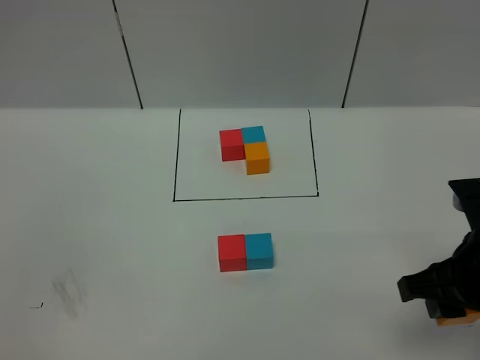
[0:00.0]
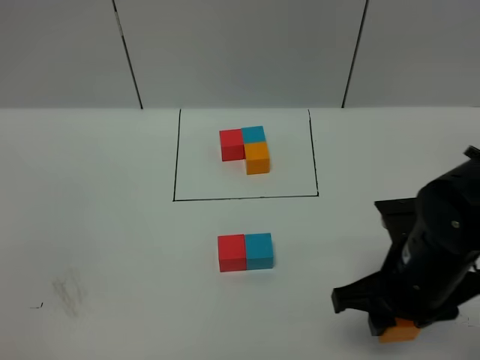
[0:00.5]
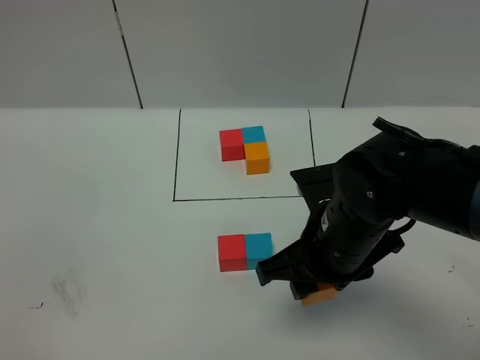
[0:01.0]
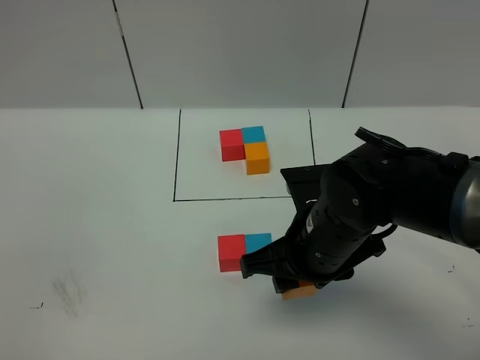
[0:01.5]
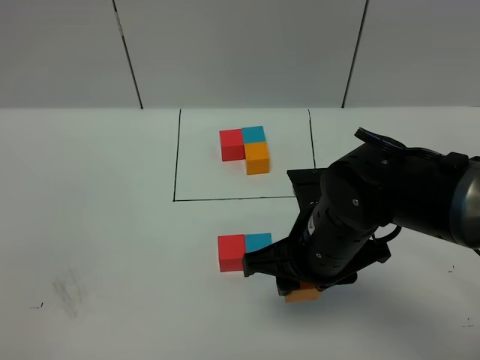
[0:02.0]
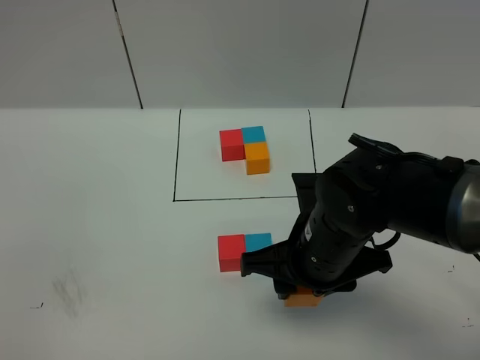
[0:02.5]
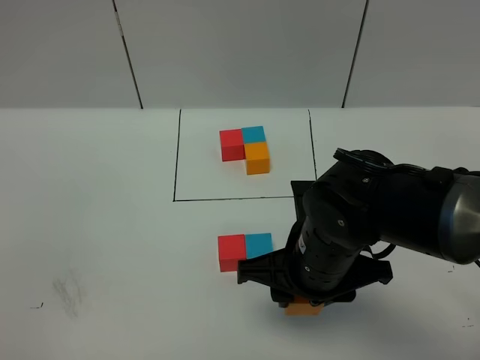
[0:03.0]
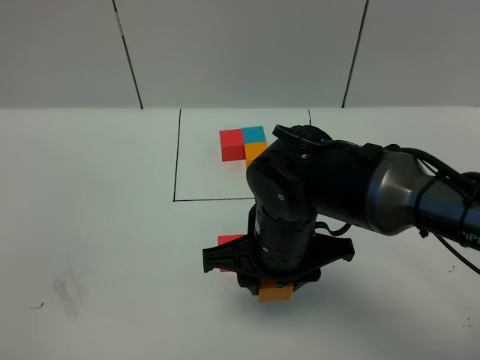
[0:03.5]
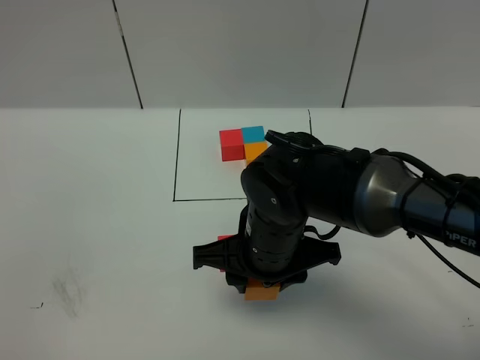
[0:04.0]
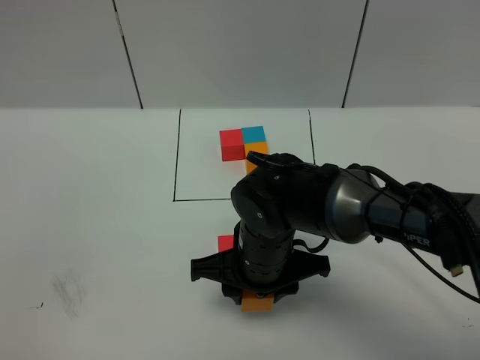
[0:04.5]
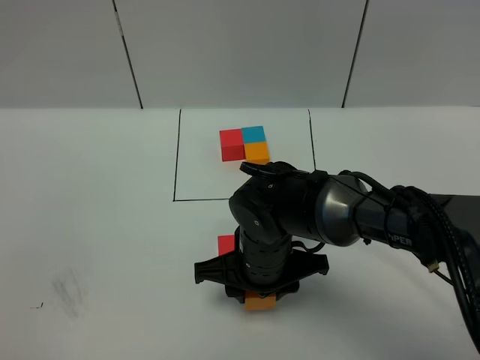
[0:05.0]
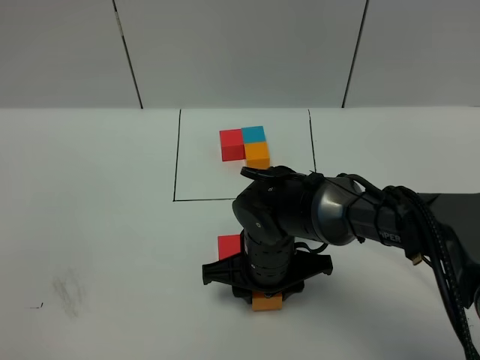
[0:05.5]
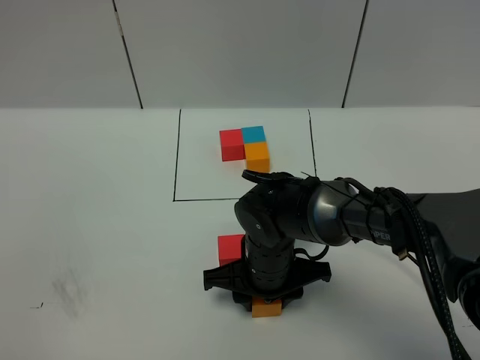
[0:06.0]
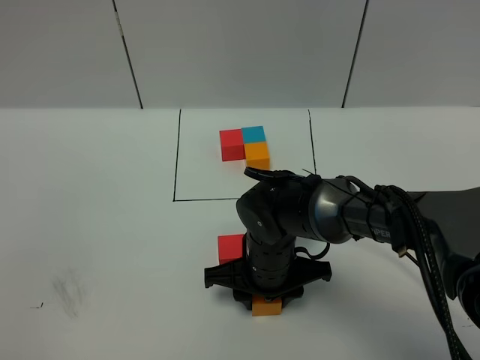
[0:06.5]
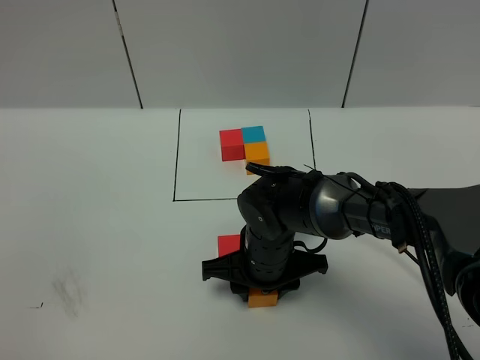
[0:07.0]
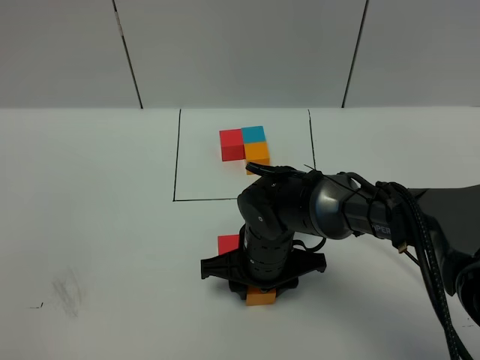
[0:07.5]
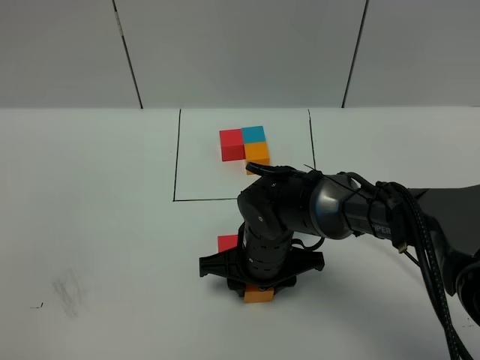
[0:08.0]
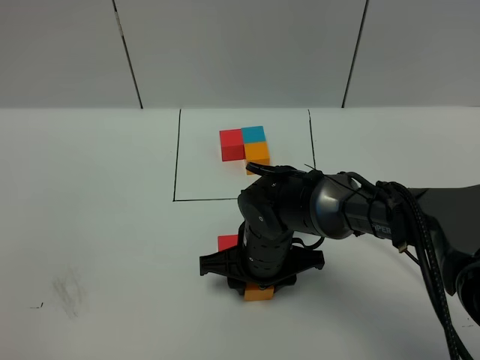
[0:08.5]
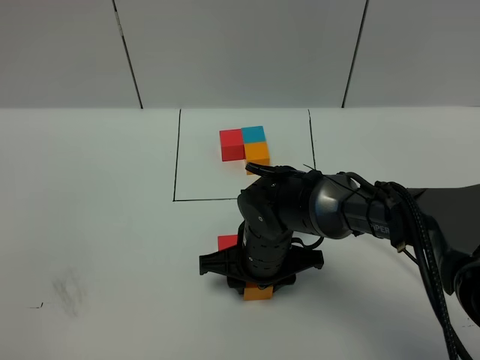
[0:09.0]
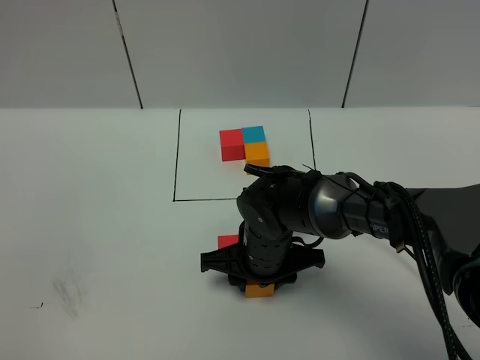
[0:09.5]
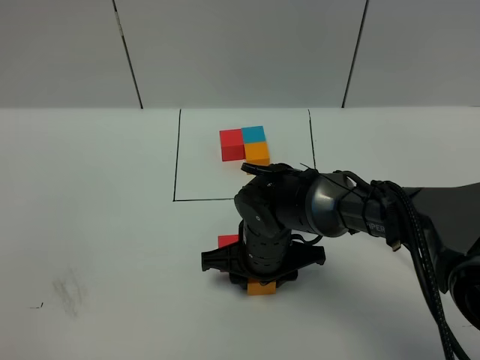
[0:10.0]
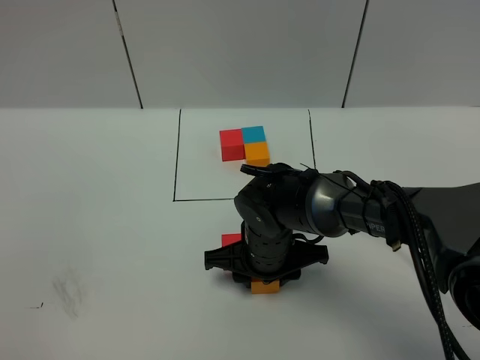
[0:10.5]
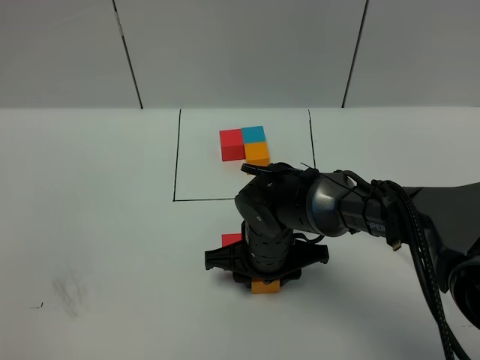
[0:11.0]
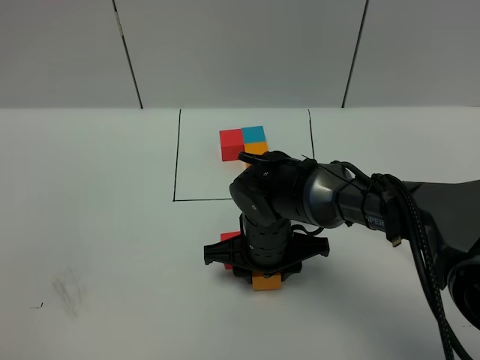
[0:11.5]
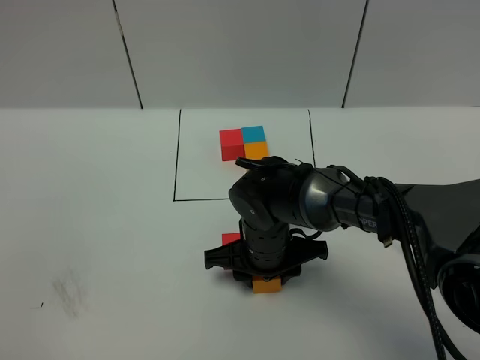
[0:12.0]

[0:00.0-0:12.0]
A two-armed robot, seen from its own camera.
Task of the whole recording: According to the building block template in front, assemble the scattered blocks together.
0:00.0 to 0:02.0: The right gripper shifts approximately 15 cm to the left.
0:02.0 to 0:04.0: The right gripper moves to the left, roughly 5 cm.
0:04.0 to 0:06.0: The right gripper travels downward by approximately 10 cm.
0:06.0 to 0:08.0: Both grippers stay about where they are.
0:08.0 to 0:10.0: Both grippers stay about where they are.
0:10.0 to 0:12.0: Neither gripper changes place.

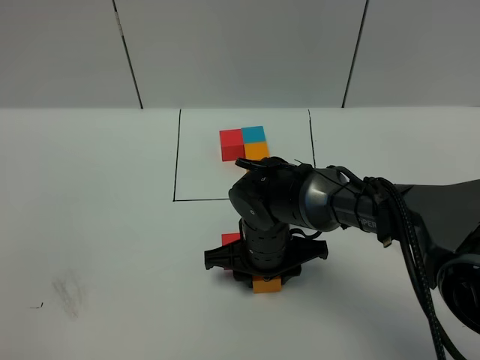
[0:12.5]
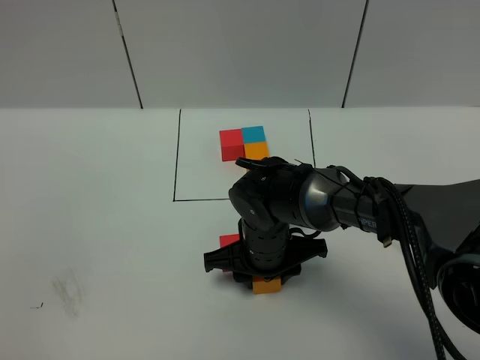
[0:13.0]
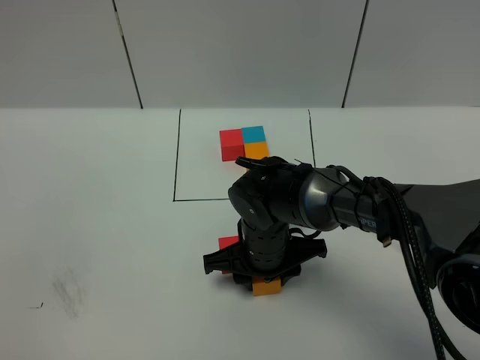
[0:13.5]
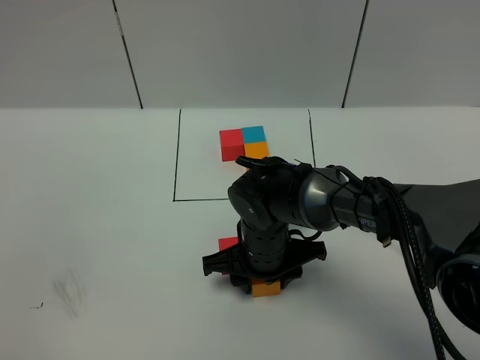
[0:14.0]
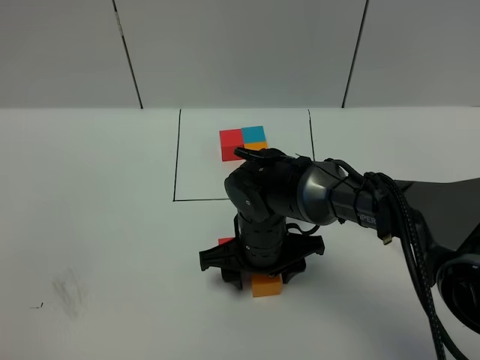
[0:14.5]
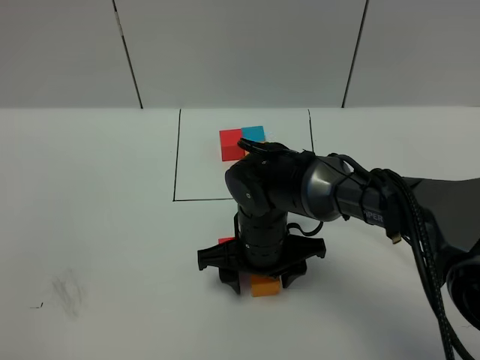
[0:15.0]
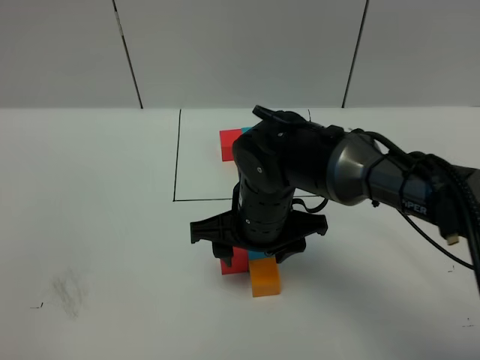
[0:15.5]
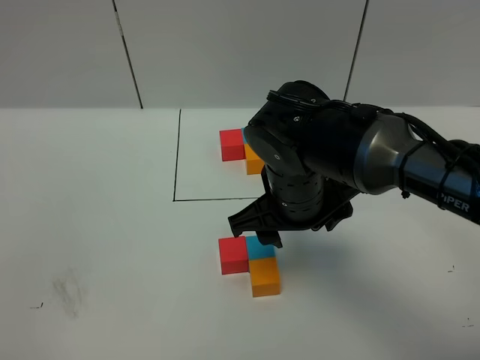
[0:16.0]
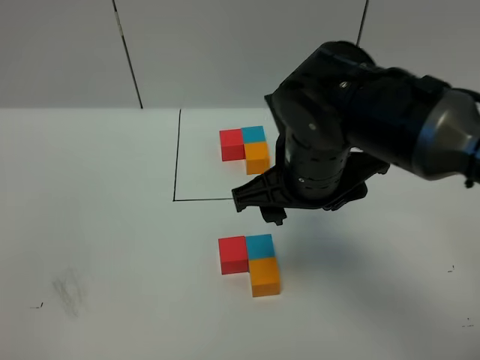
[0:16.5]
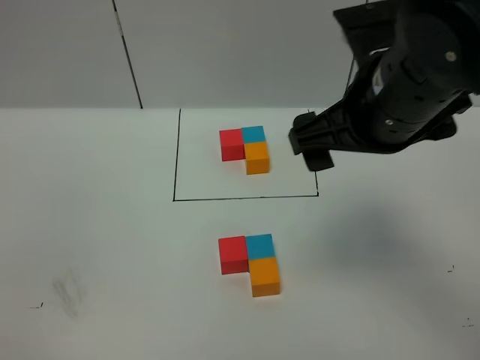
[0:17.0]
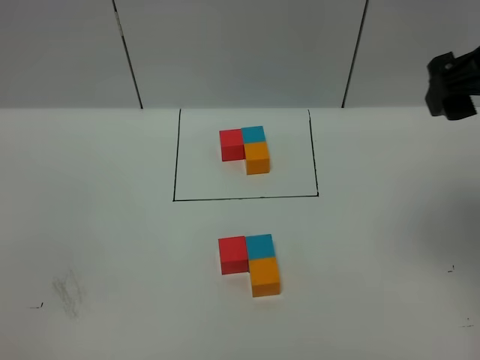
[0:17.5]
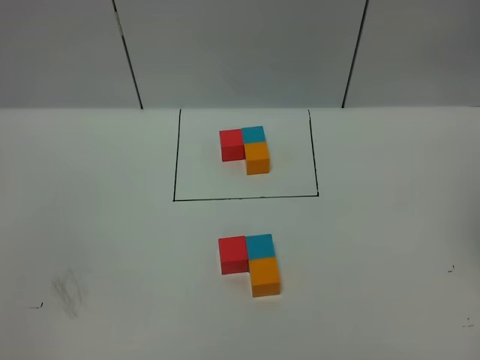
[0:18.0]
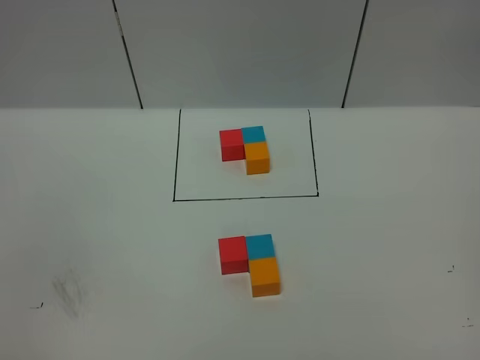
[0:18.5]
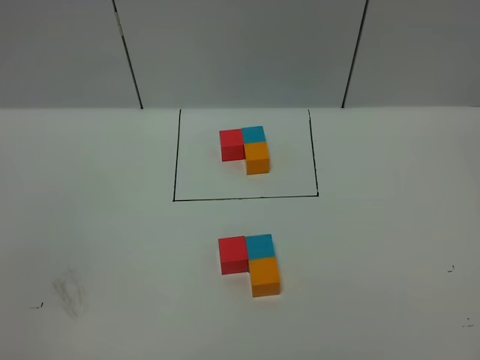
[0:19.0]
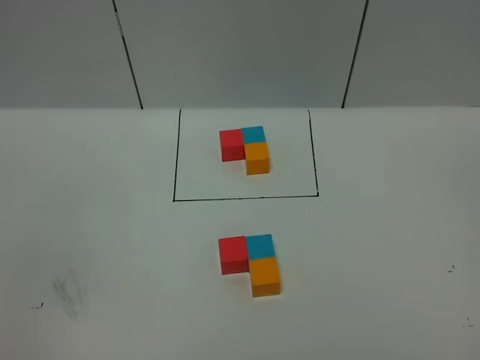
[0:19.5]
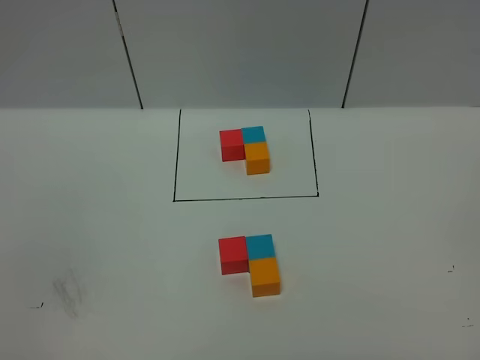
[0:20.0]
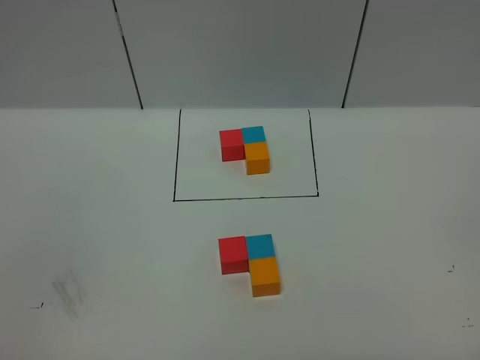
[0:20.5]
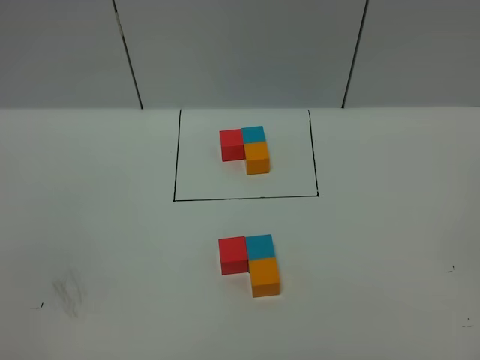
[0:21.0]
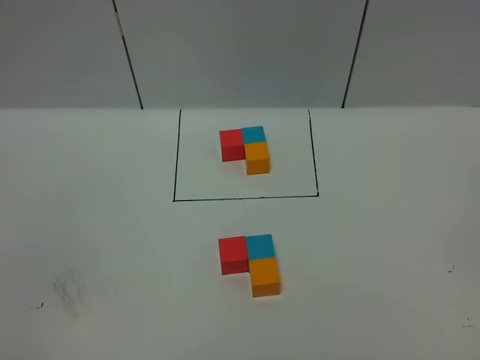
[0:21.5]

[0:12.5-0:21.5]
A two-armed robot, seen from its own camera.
Task of the whole recording: According to the building block template in front, assemble the scattered blocks together.
Step, 0:12.5 to 0:15.0: Put the orange cube in the front of the blue cube.
0:12.5 to 0:14.5: The right gripper opens its fingers.
0:14.5 to 0:17.0: The right gripper travels upward and to the right by roughly 25 cm, and opens.
0:17.0 to 0:19.5: The right gripper is displaced backward and to the right by roughly 30 cm.

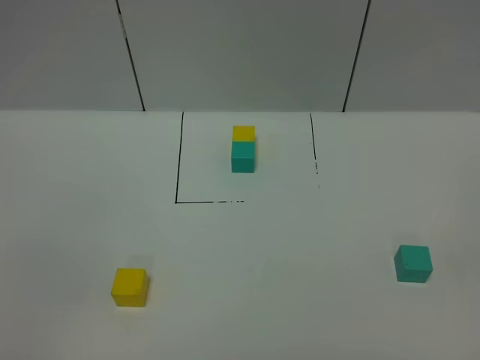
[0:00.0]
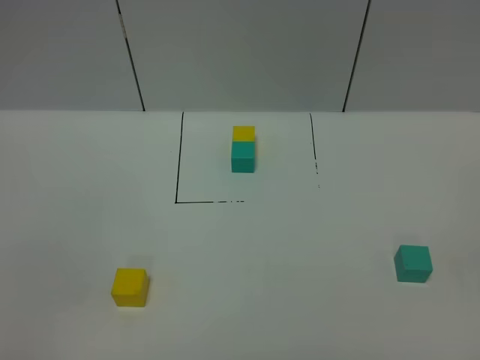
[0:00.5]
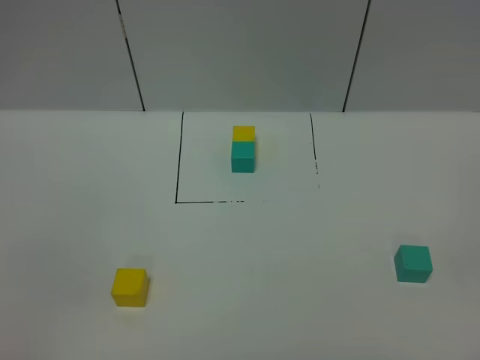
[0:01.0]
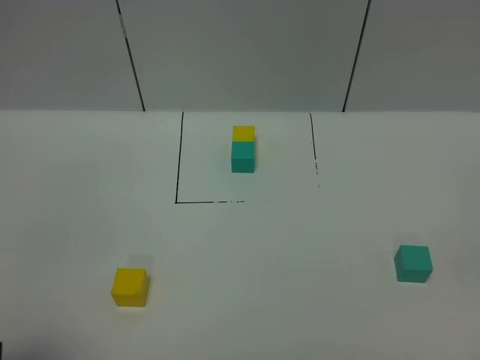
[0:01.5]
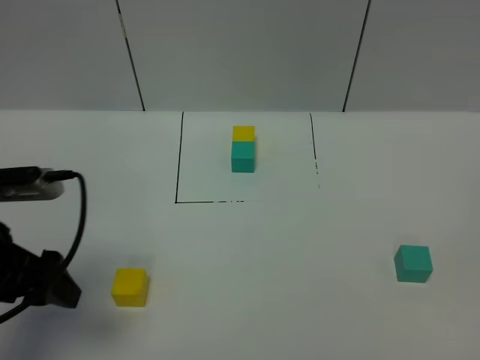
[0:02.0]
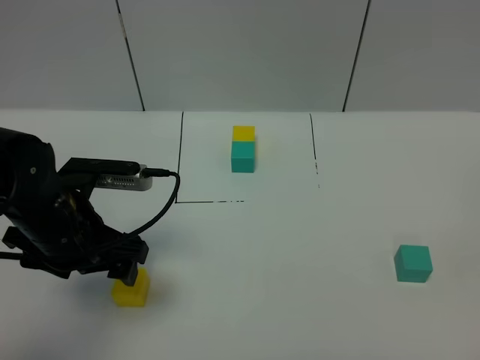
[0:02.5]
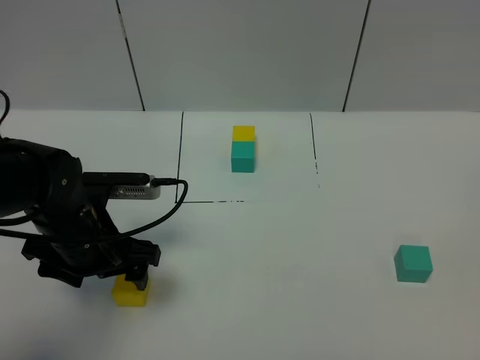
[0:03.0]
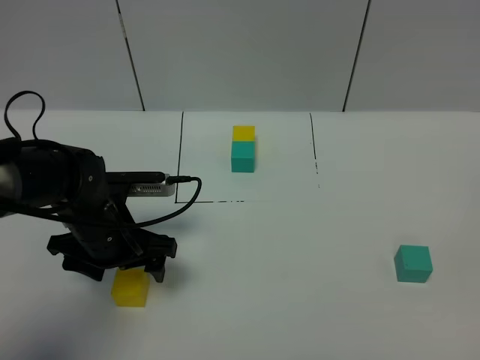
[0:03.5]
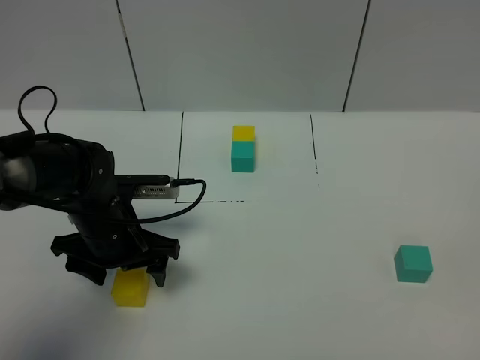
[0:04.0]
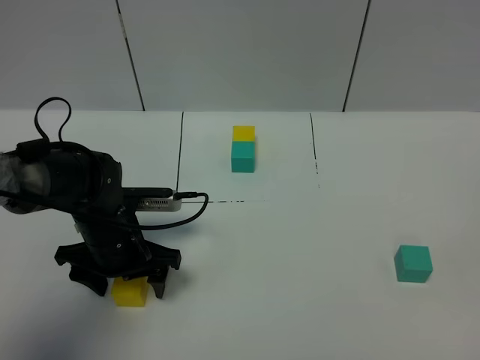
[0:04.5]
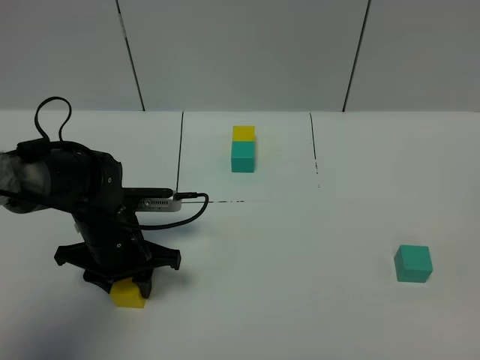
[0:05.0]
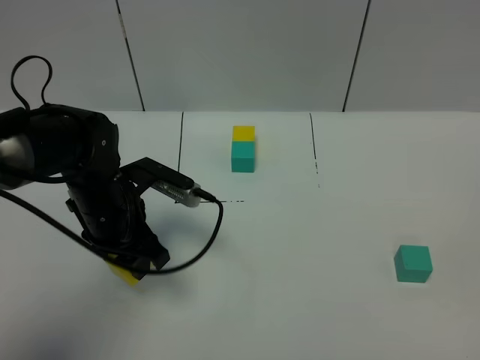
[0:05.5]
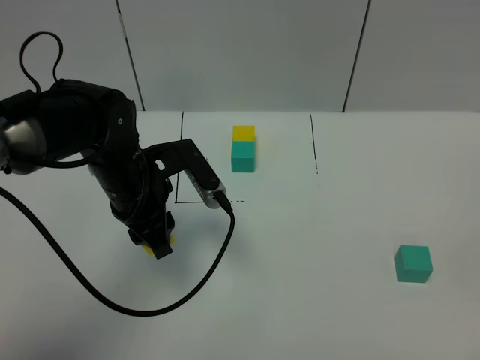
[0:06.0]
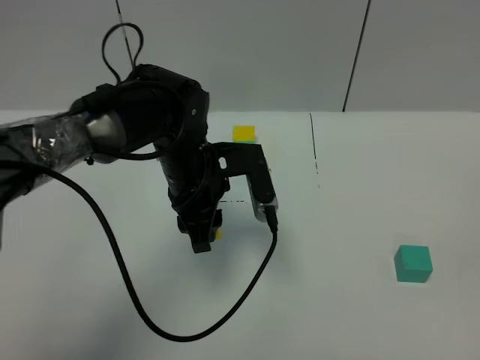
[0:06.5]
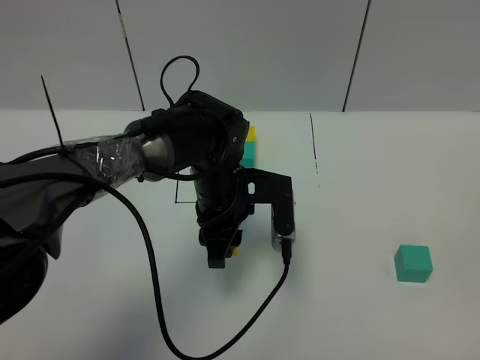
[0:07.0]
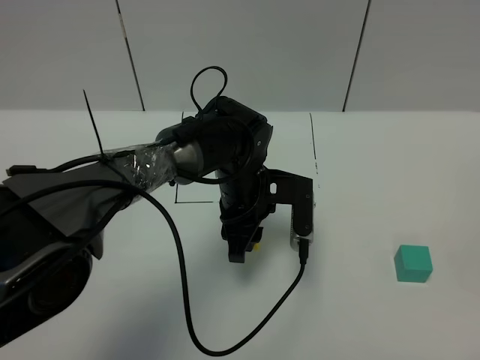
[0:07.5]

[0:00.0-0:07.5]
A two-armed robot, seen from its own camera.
Task of the whole recording: According to the building block template in front, assemble the scattered blocks together.
0:00.0 to 0:02.0: The left gripper goes approximately 25 cm forward.
0:02.0 to 0:04.0: The left gripper heads downward, forward and to the right, covering some 15 cm.
0:04.0 to 0:05.5: The left gripper closes its fingers.
0:05.5 to 0:07.5: The left gripper is displaced to the right by roughly 15 cm.
